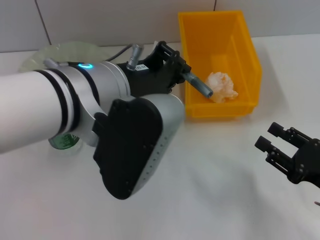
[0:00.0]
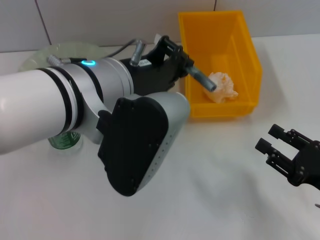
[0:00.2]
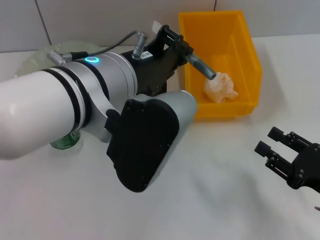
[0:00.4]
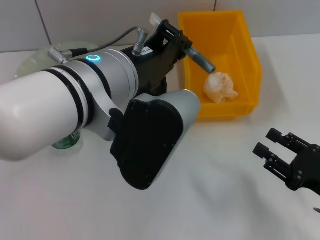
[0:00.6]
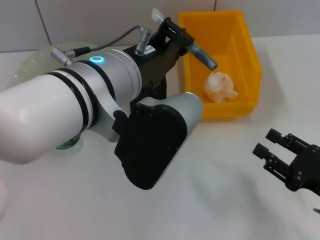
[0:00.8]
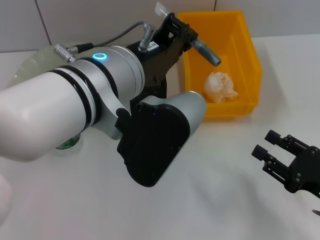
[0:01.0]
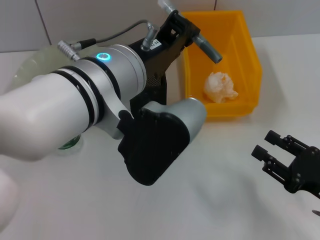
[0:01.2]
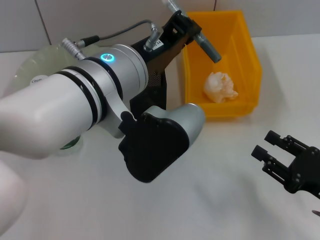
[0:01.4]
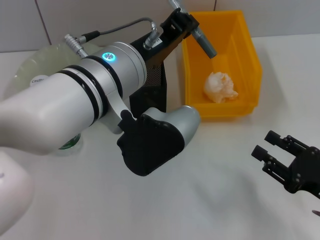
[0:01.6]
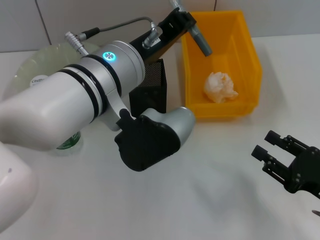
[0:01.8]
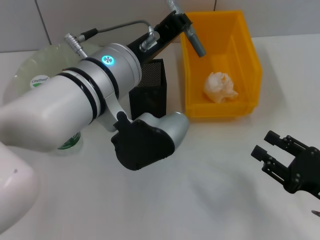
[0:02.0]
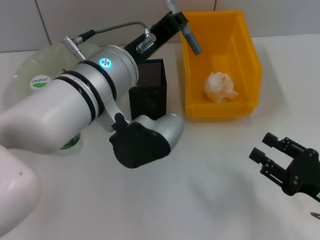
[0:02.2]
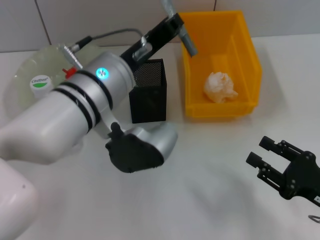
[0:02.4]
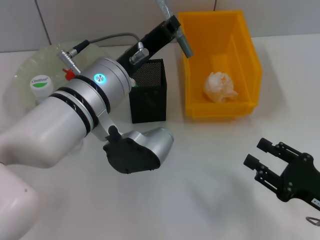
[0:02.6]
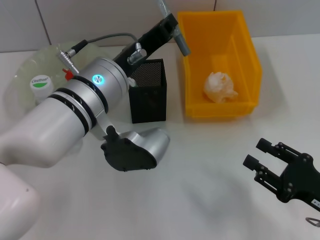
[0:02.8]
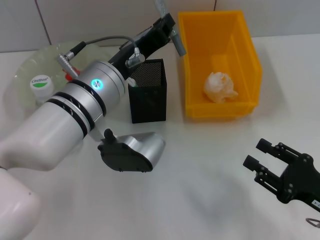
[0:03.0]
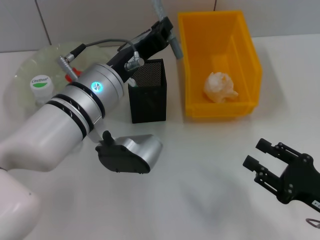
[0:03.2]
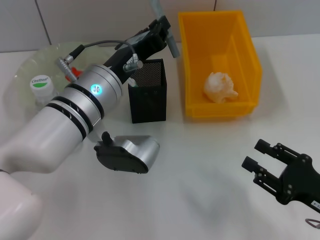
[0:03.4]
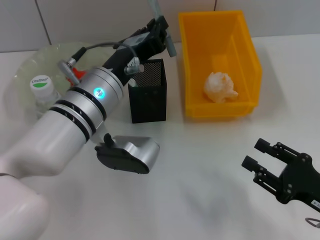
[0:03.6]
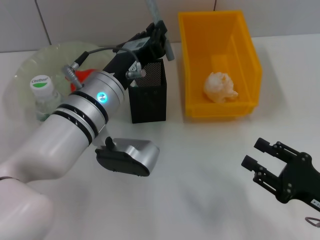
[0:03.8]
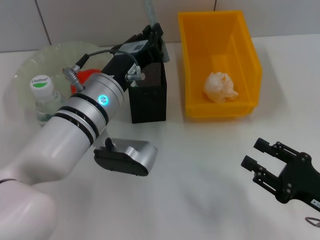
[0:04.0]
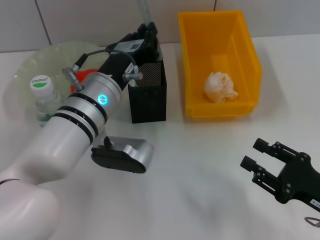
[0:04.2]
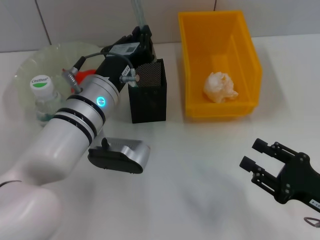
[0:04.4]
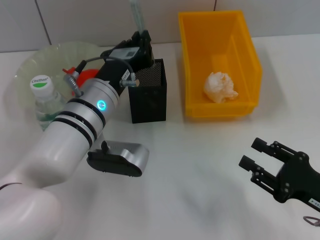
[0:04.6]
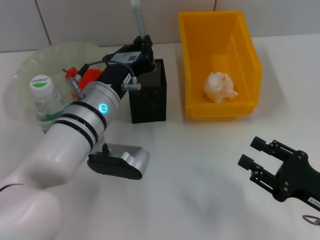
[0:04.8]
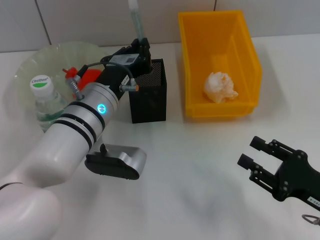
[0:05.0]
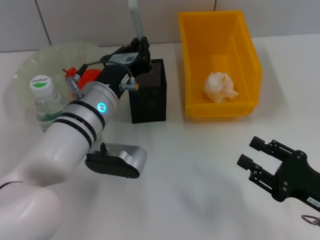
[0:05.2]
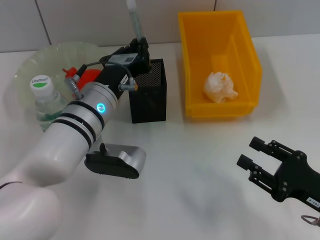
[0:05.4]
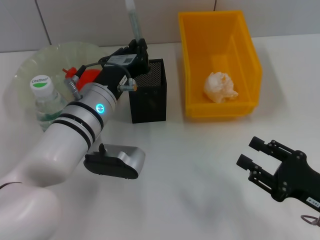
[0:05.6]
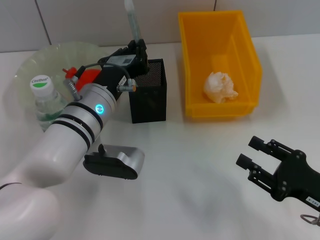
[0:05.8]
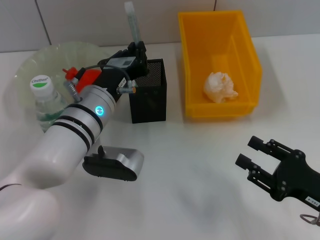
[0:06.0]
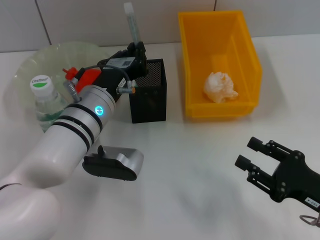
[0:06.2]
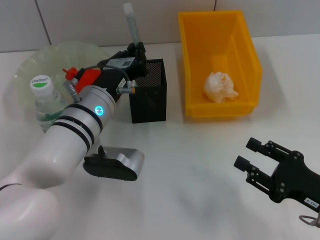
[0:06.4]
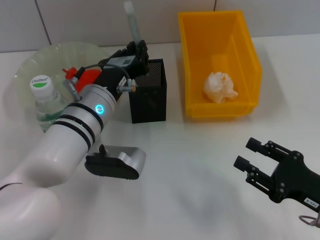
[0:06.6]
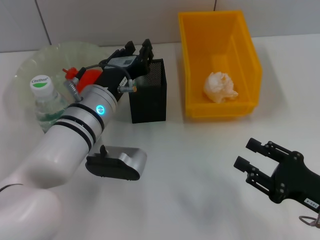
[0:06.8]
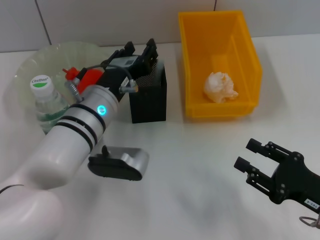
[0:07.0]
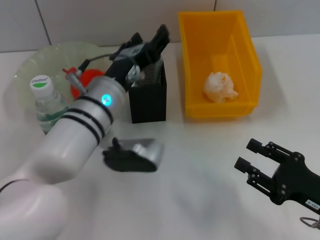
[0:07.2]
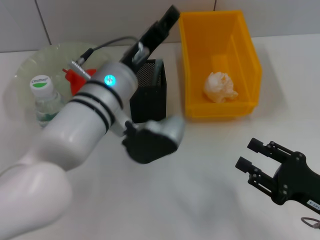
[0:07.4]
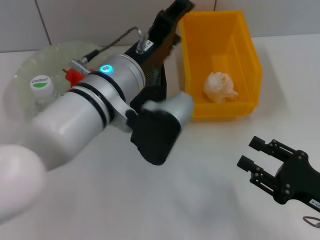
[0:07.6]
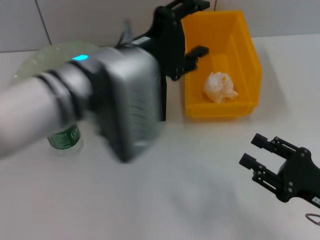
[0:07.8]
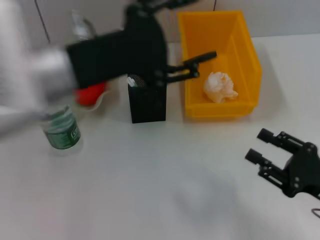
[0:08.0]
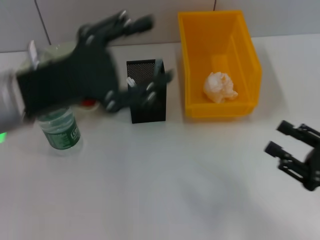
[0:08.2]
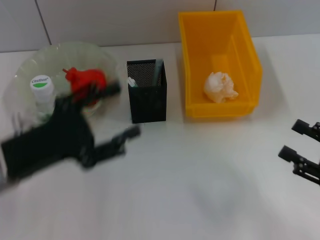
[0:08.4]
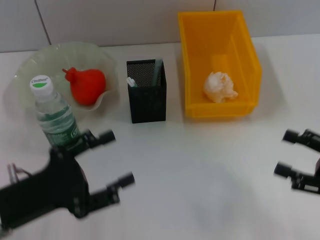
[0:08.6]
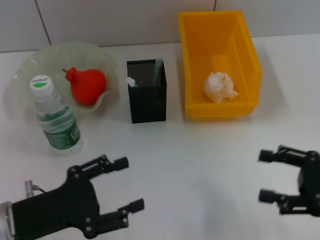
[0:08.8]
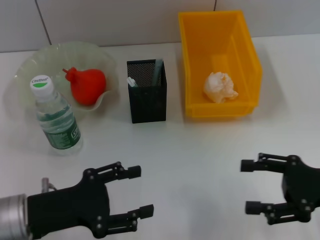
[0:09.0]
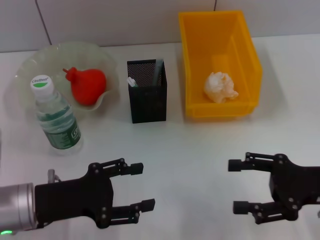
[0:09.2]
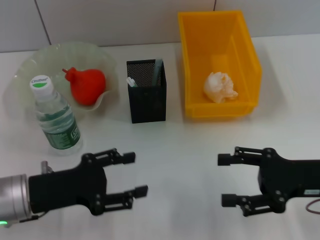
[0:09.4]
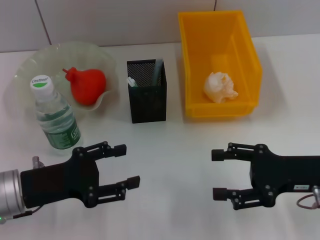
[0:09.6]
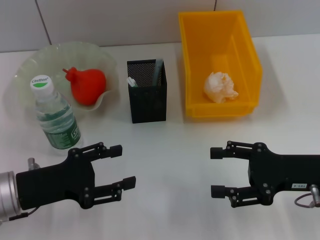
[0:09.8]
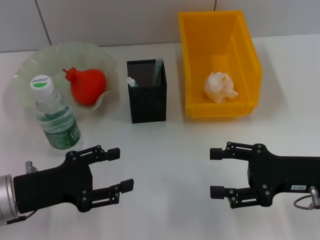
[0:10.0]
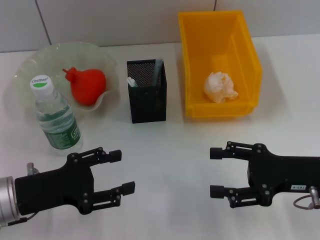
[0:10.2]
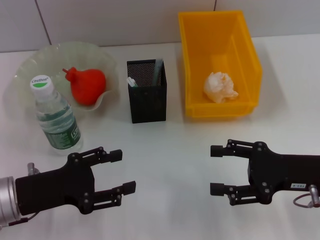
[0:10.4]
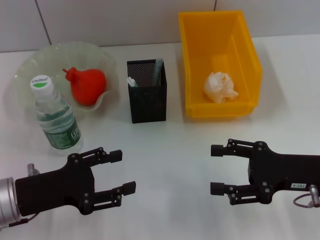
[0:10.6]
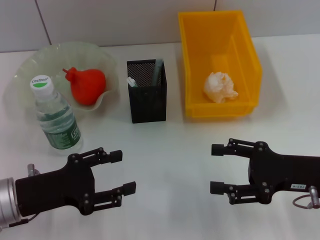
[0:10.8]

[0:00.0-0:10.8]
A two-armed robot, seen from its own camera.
Step, 0:00.0 to 0:07.2: Place the gray glue into the pen holder with the left hand.
0:01.6 to 0:03.0: The left gripper heads downward, covering some 5 cm.
0:04.6 to 0:06.2: The grippers stay close to where they were, moving slightly.
0:06.2 to 0:07.8: The left gripper travels upward by about 10 cm, and opens its fingers.
0:07.8 to 0:09.2: The left gripper shifts roughly 20 cm to the left, downward and backward; the right gripper shifts roughly 5 cm forward.
0:09.2 to 0:10.8: The grippers move only a little.
